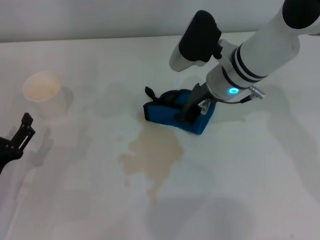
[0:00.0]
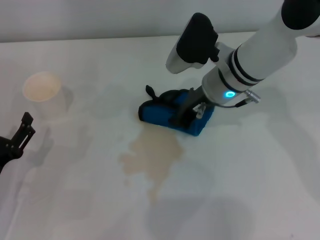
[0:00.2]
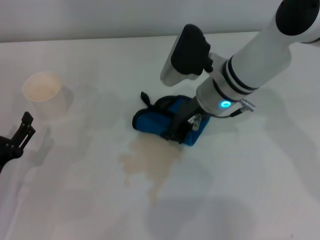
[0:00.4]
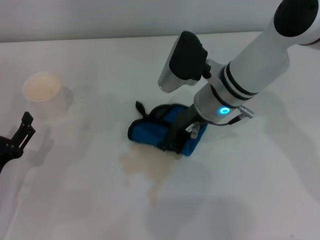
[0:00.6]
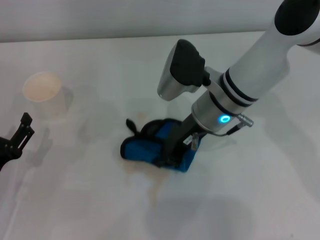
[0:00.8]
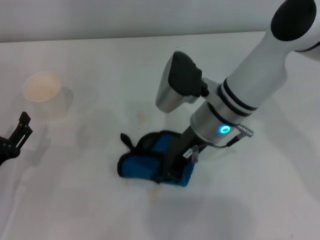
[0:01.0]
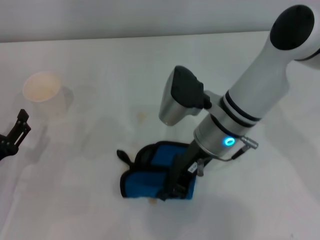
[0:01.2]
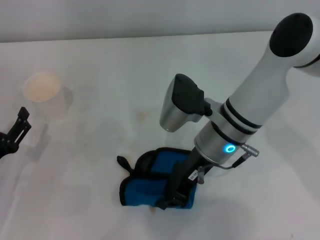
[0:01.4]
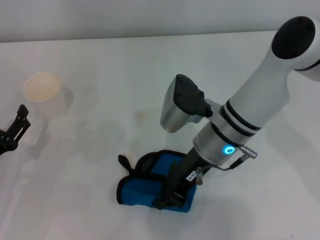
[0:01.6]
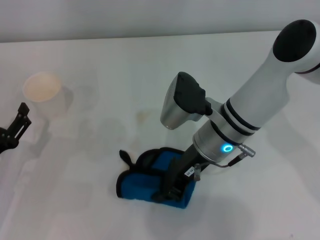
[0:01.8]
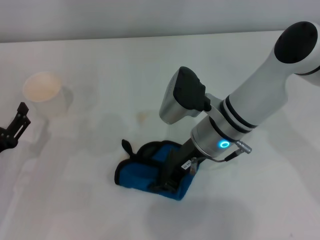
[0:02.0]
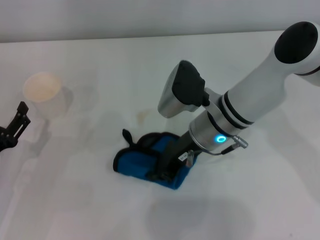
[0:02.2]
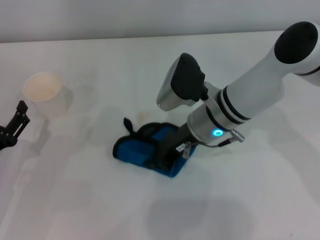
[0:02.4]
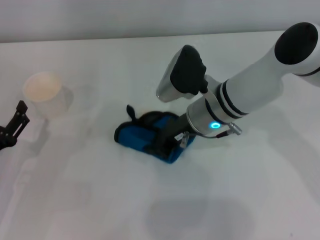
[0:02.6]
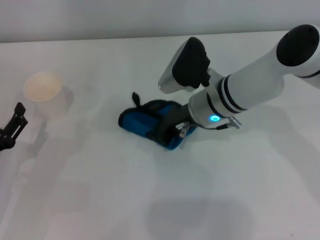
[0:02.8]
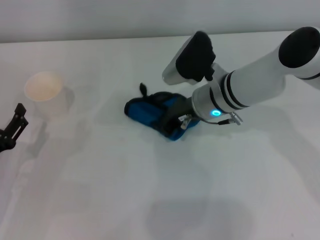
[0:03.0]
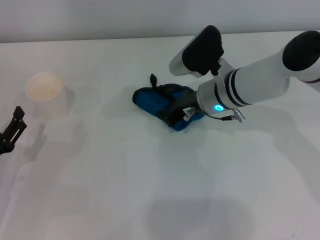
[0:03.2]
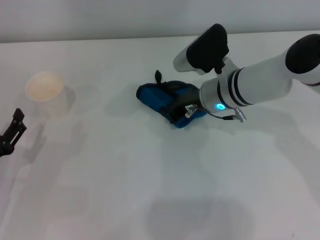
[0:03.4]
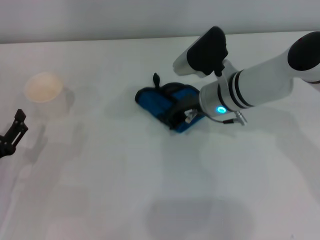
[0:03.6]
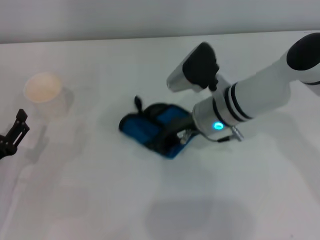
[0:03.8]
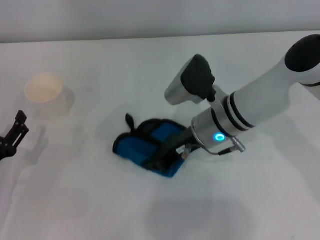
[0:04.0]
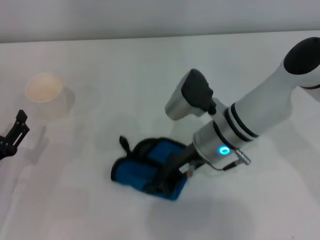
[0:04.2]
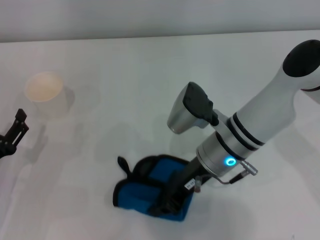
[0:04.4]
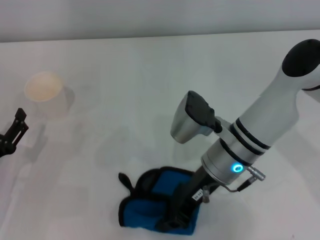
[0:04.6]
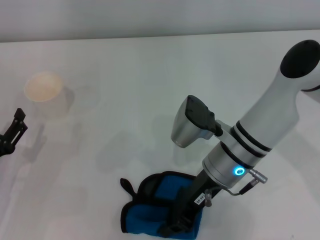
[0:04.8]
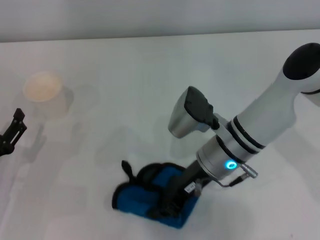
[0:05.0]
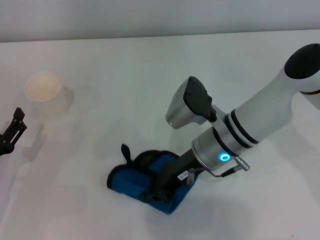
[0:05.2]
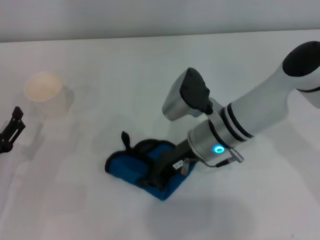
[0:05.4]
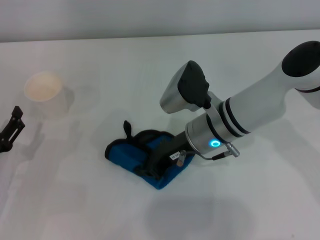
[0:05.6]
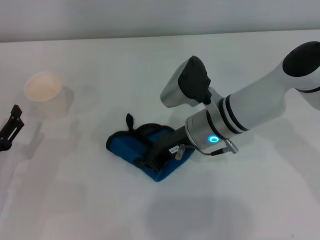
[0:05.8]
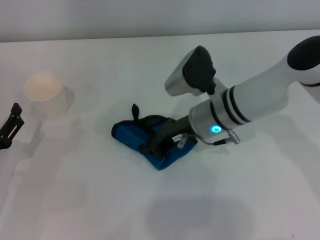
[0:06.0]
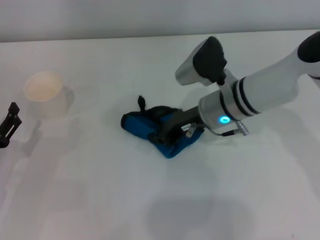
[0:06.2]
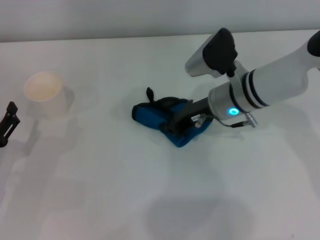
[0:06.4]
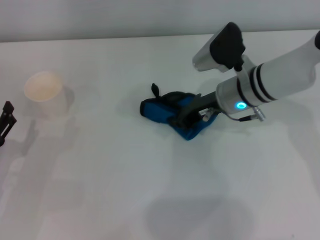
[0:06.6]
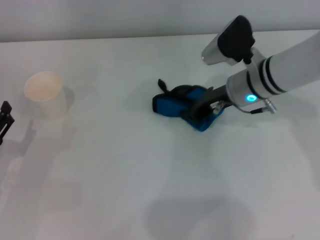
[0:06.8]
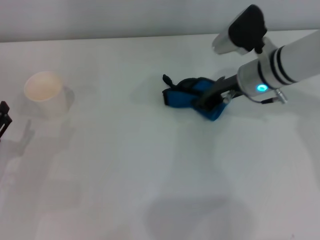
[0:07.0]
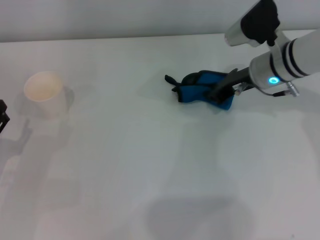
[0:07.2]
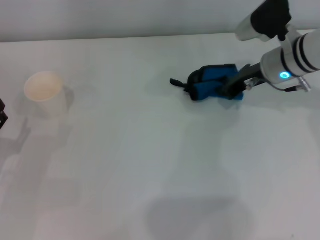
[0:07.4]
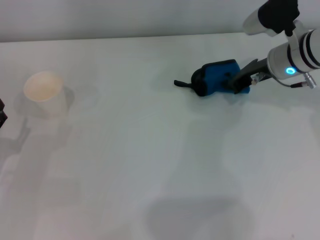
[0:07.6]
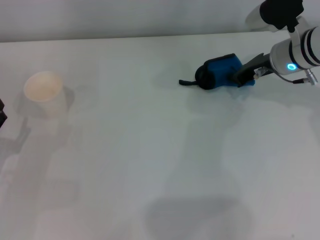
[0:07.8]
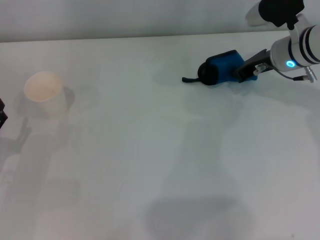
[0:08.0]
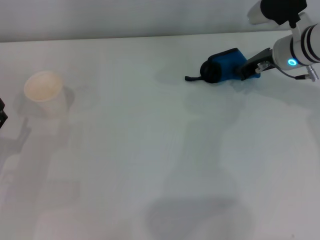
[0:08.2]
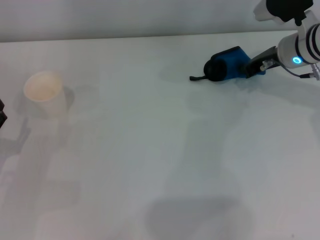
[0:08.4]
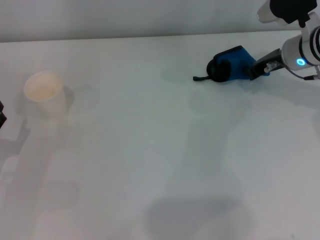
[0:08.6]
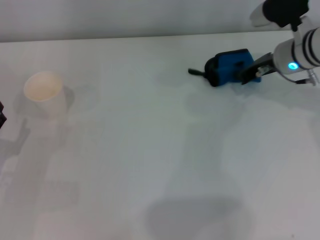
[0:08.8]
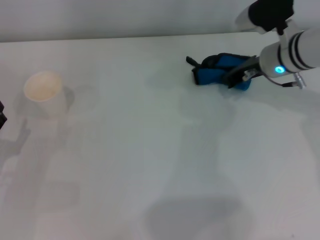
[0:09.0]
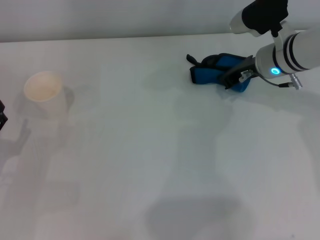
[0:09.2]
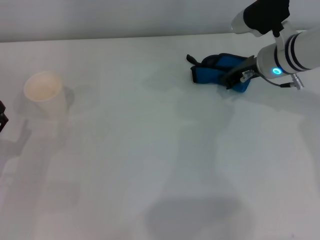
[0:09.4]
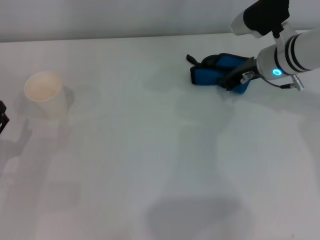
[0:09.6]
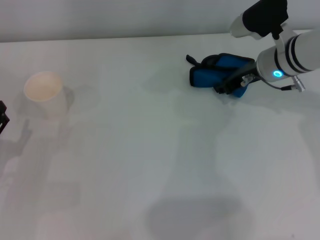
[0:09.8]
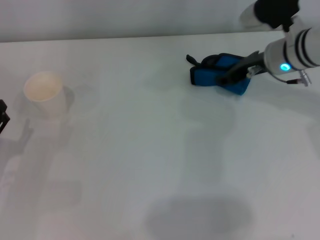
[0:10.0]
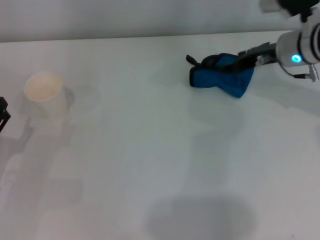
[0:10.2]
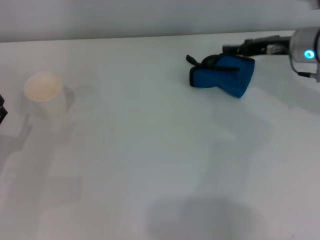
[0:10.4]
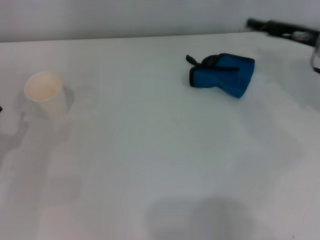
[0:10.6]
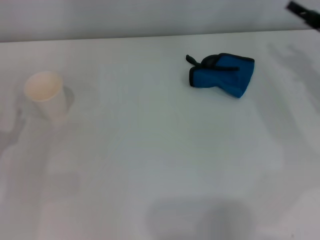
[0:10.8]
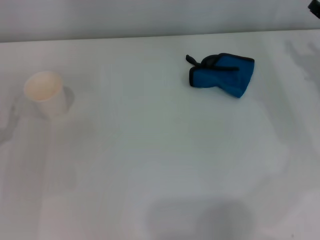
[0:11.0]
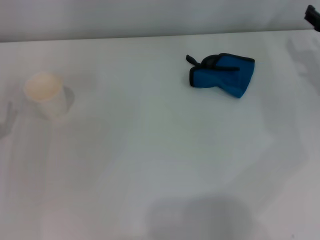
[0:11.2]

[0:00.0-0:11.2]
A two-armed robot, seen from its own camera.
Step, 0:00.0 to 0:09.2: Wipe the stains off the table with the right gripper.
Step, 0:09.4 to 0:10.0: Place the rag on the table with the right gripper.
0:00.0 to 0:01.6: The right gripper moves backward, approximately 5 cm.
0:01.6 to 0:03.2: The right gripper goes roughly 5 cm forward.
0:03.2 to 0:04.8: The right gripper goes about 10 cm backward.
0:04.8 to 0:06.4: The right gripper shifts some 10 cm forward.
0:06.4 to 0:08.0: The right gripper travels to the right and forward by roughly 10 cm.
0:08.0 to 0:09.6: The grippers make only small movements.
0:09.6 to 0:11.2: The right gripper moves to the right, about 10 cm, and opens.
